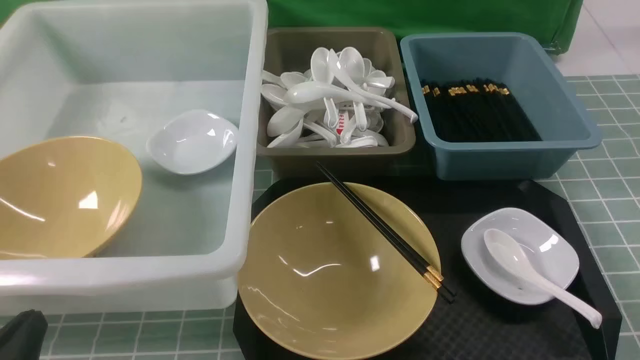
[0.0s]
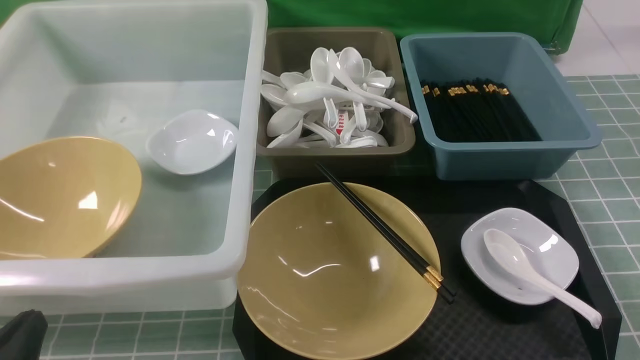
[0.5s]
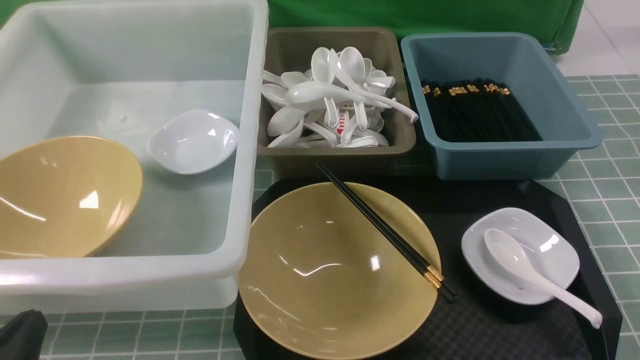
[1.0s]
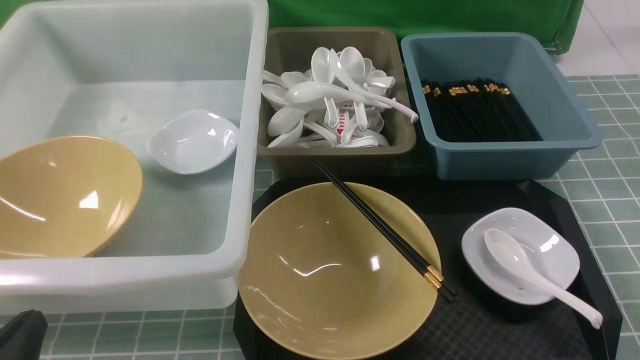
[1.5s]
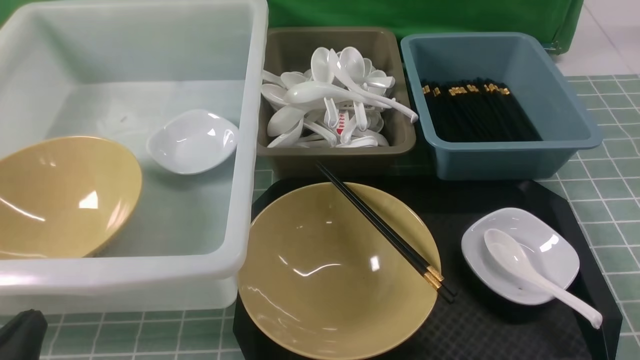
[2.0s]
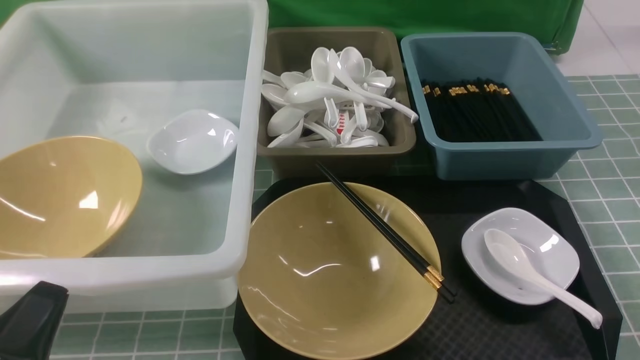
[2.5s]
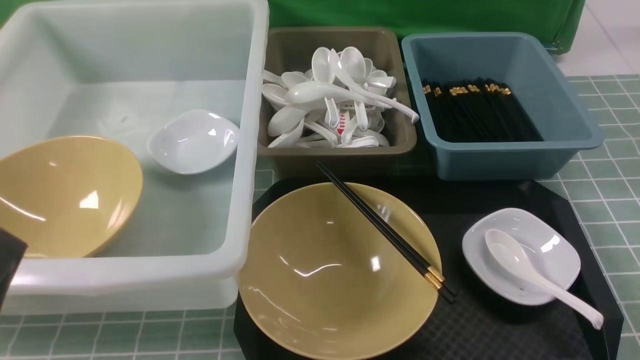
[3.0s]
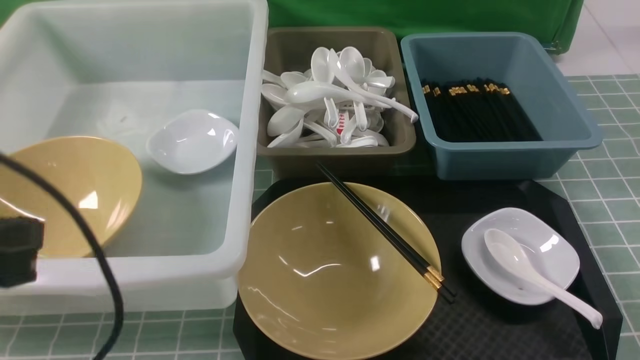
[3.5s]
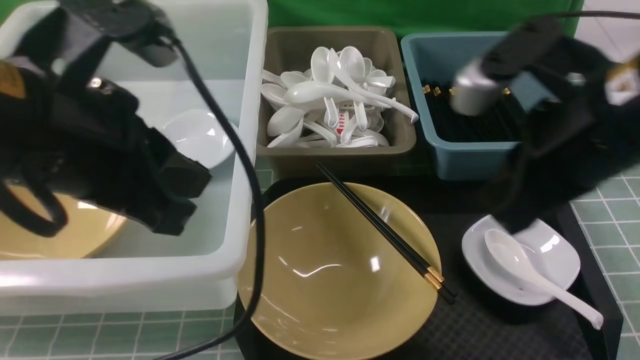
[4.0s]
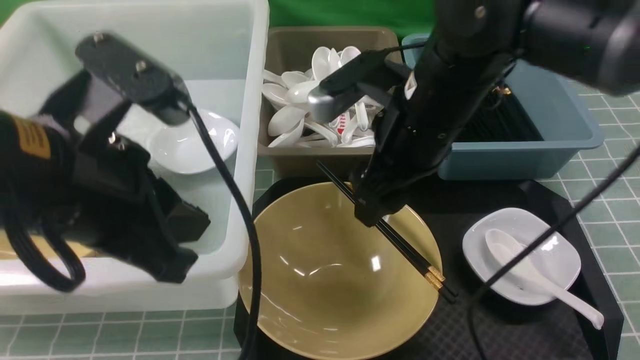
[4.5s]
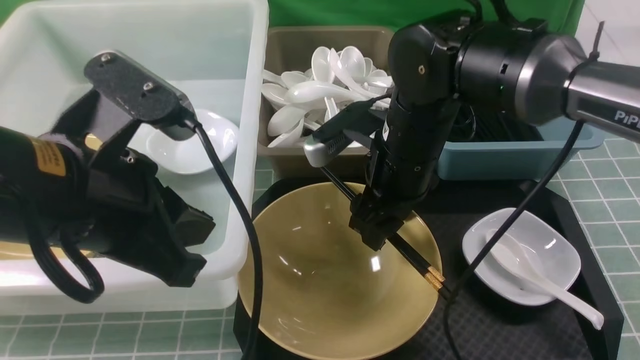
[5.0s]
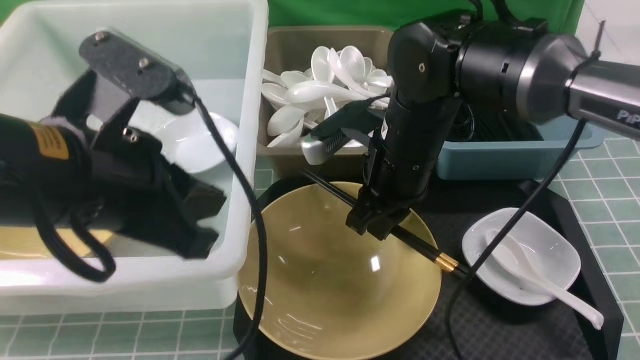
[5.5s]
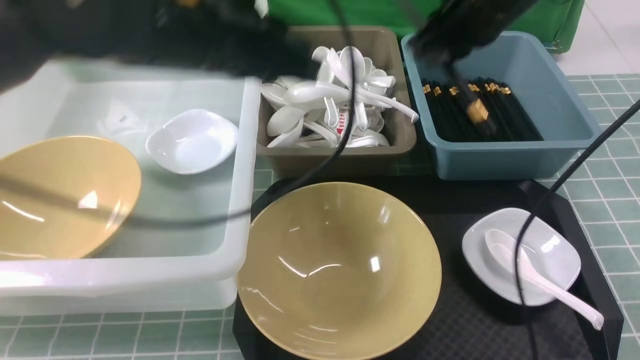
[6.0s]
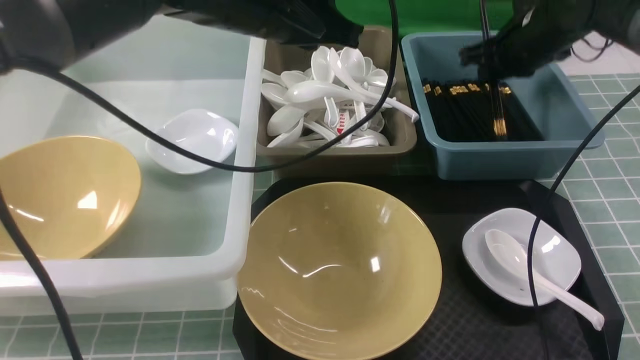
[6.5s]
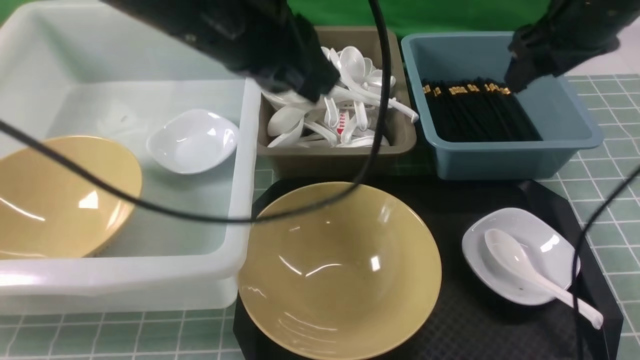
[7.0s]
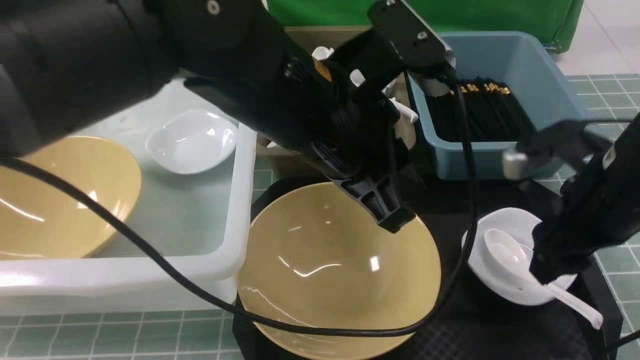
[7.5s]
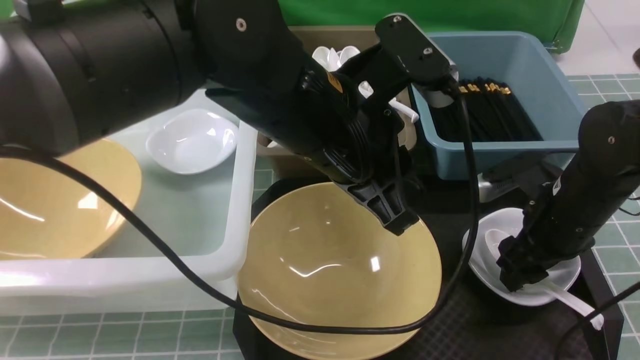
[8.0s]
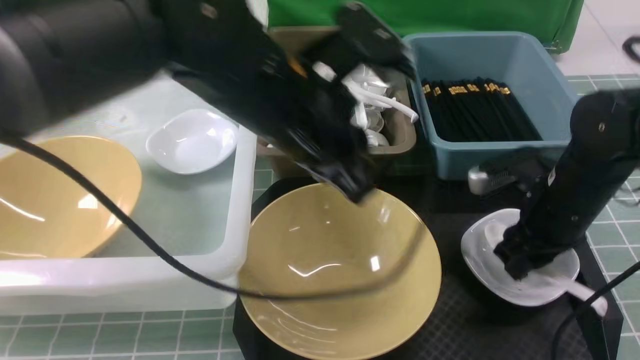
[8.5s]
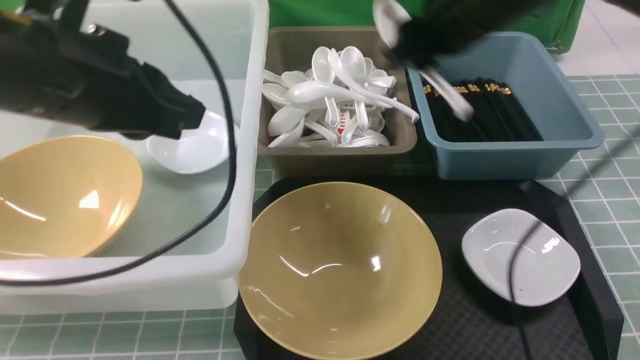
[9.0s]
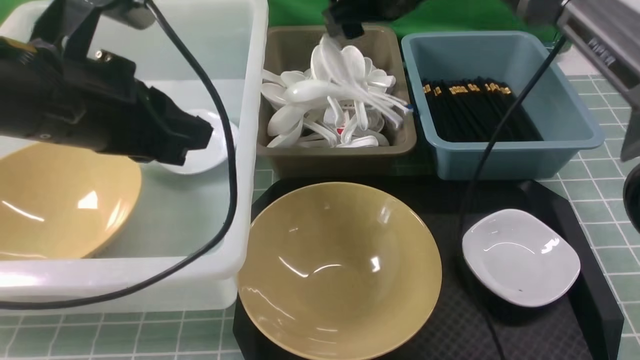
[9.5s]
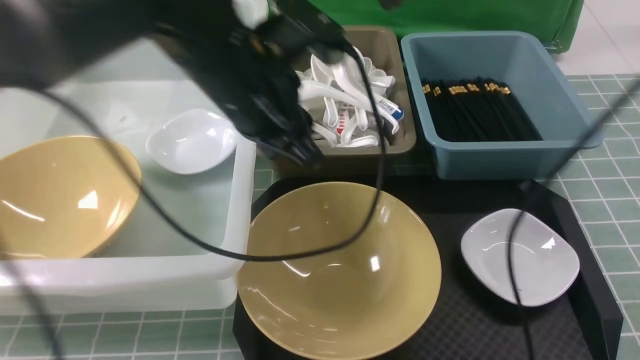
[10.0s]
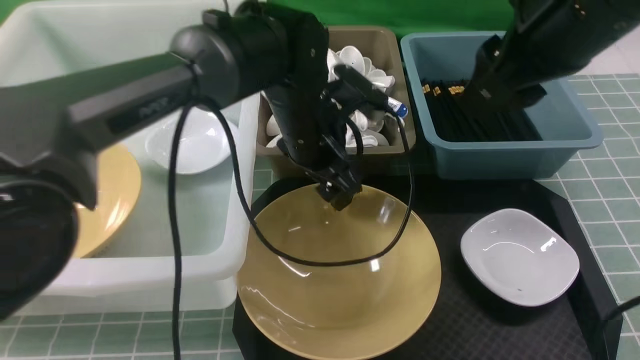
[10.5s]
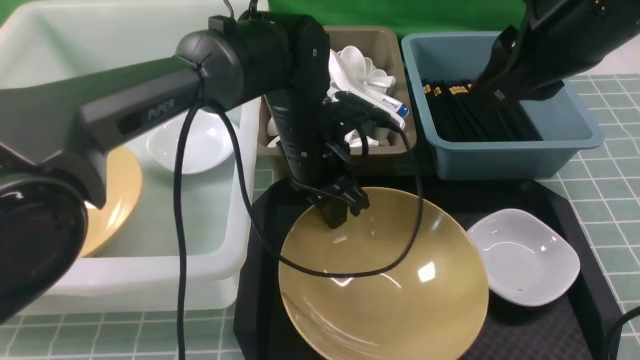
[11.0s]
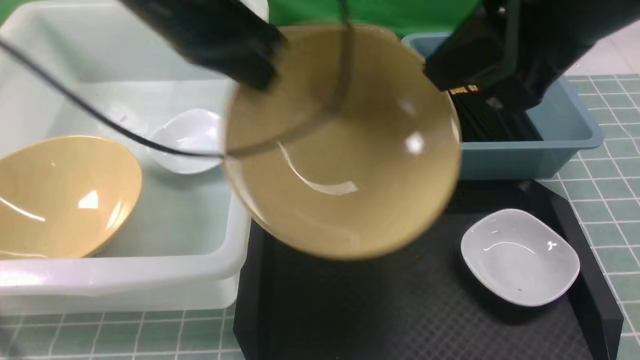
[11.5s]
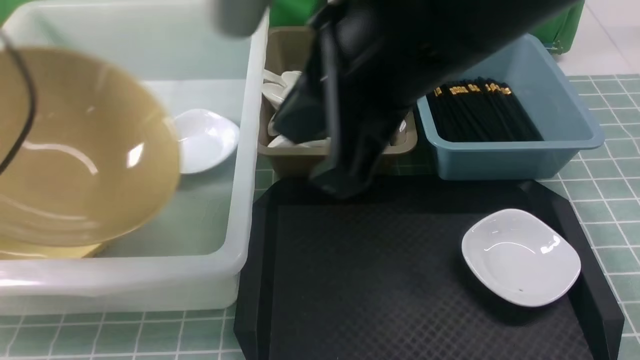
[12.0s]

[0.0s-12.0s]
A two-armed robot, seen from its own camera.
Task of the whole recording: on blue table put chopsticks spoon bowls plates into blue grey white boxes.
Step, 0.0s to 5.5s: use the right arm to grab the chopsticks.
Step, 6.0s to 6.5s: use the right arm to put the chopsticks into the small storage box on the right.
Step, 7.0s to 8.5s: use the right arm to grab the soup spoon in the middle.
Step, 9.0s to 9.5s: use the right arm to put the soup spoon into the small storage box in the middle.
Step, 10.0s to 11.0s: use the left arm to grab the yellow noodle bowl on the left.
2.0s to 4.0s: The left gripper travels upward, forward and to the right by about 25 cm. Meanwhile the right gripper heads forward, upward and to the left, covering some 30 cm.
4.0s to 6.0s: The left gripper moves forward and to the right, roughly 15 cm. The right gripper is displaced forward by about 20 cm, and opens, then closes once more.
6.0s to 8.0s: The right gripper moves downward, backward and to the right, roughly 20 cm, and opens. Meanwhile the left gripper heads to the right and backward, covering approximately 10 cm.
8.0s to 10.0s: The left gripper heads forward, covering roughly 5 cm, travels to the left and back again, approximately 15 cm each way, and opens; the right gripper is displaced upward and to the left by some 25 cm.
10.0s to 12.0s: The left gripper travels to the left by roughly 30 cm, and opens, then closes again. The right gripper travels backward and to the left by approximately 20 cm, and closes.

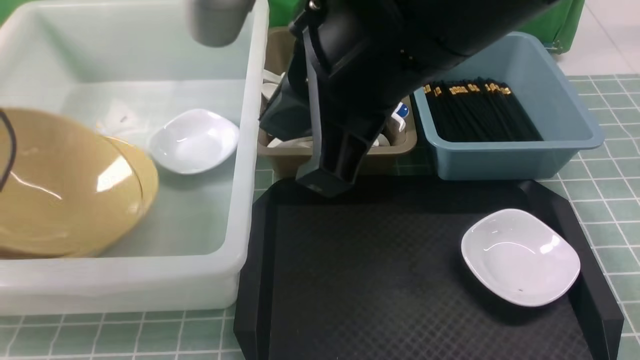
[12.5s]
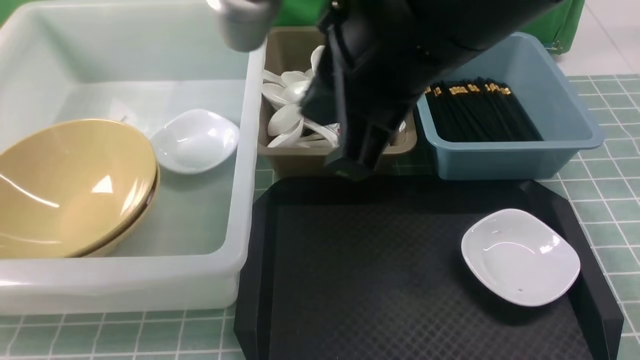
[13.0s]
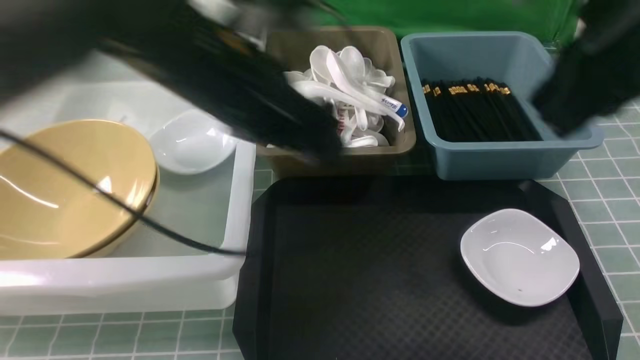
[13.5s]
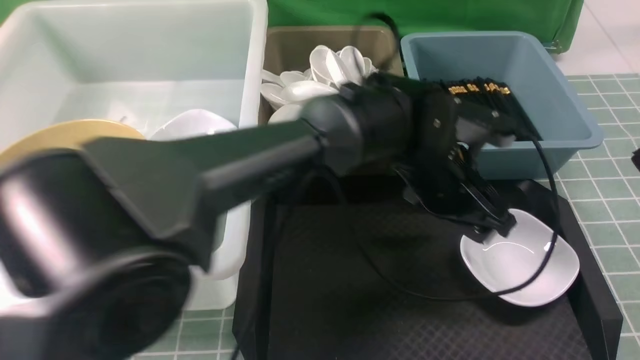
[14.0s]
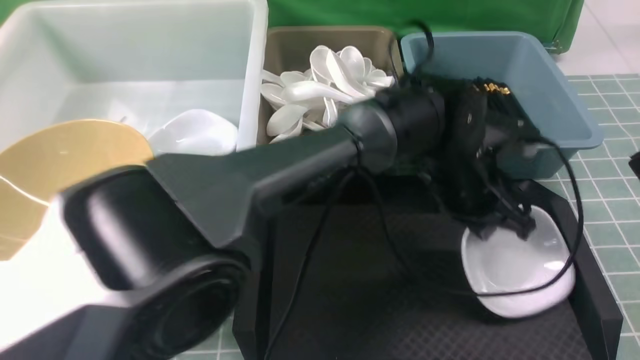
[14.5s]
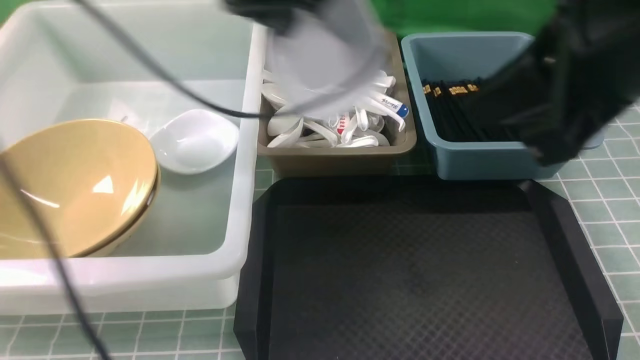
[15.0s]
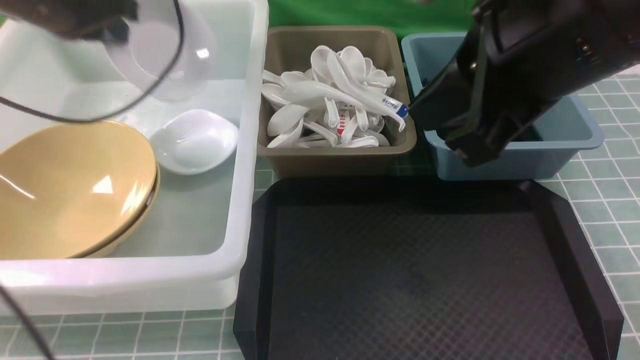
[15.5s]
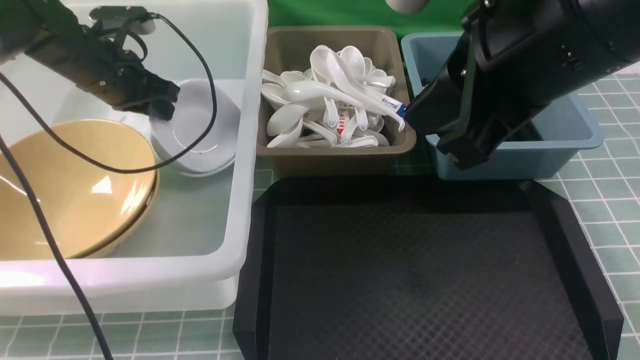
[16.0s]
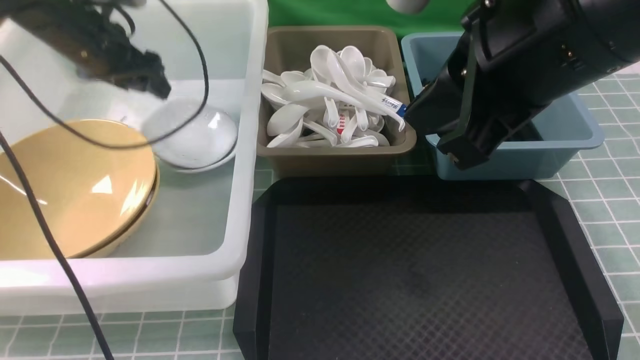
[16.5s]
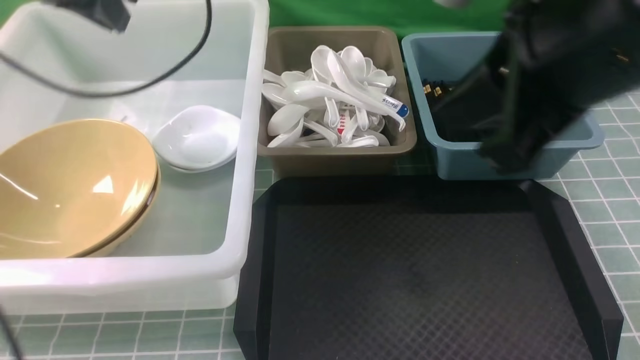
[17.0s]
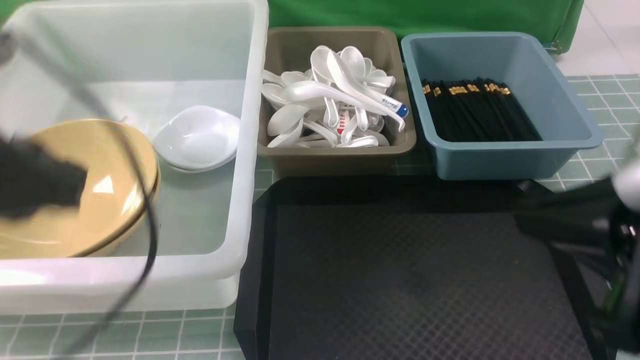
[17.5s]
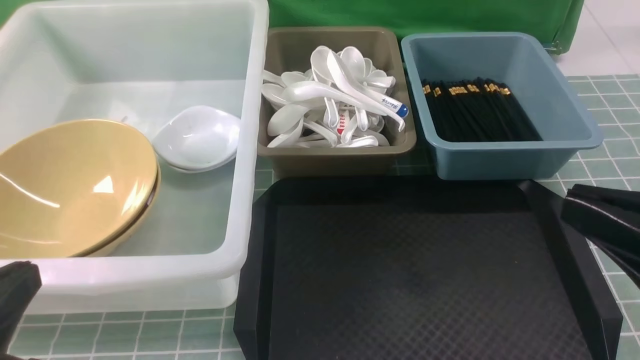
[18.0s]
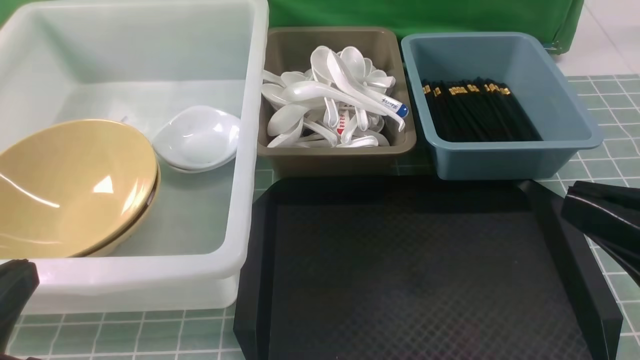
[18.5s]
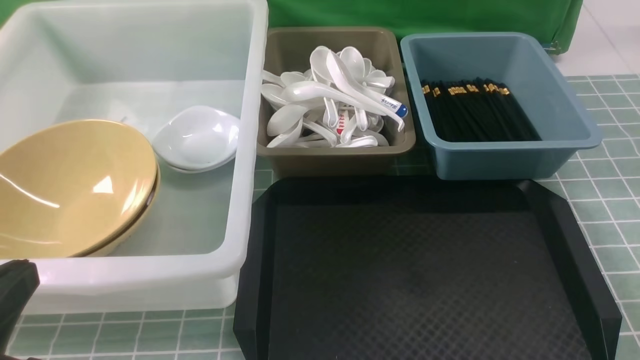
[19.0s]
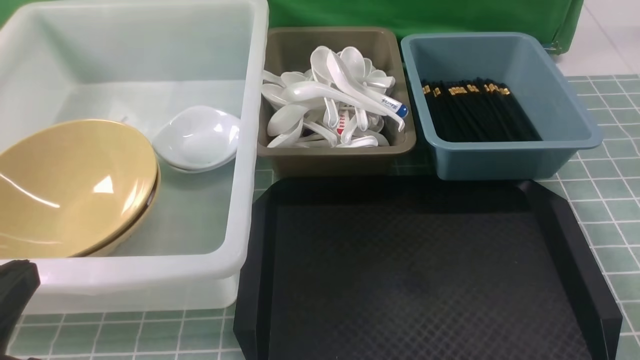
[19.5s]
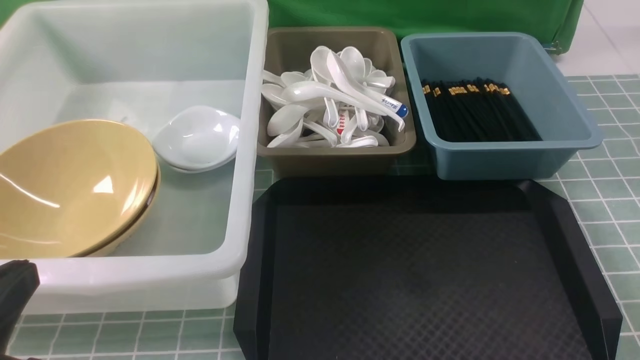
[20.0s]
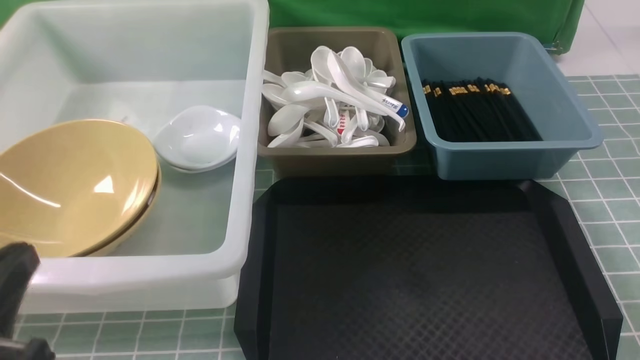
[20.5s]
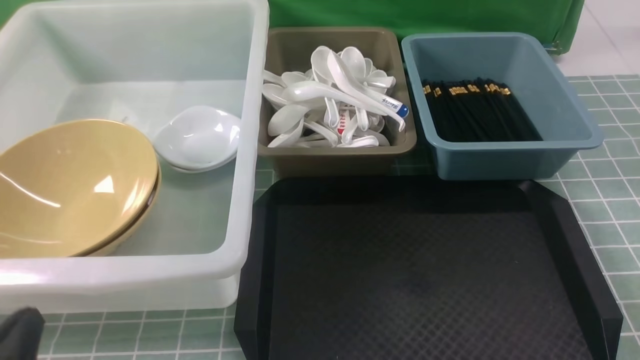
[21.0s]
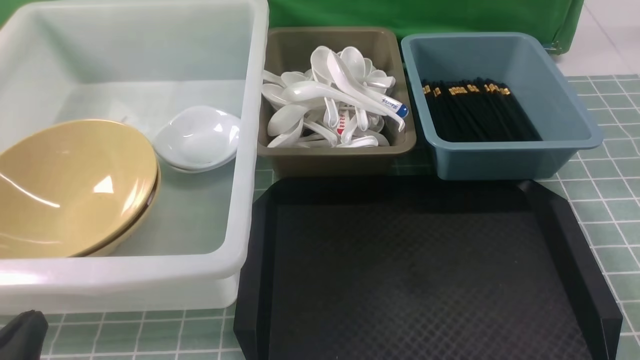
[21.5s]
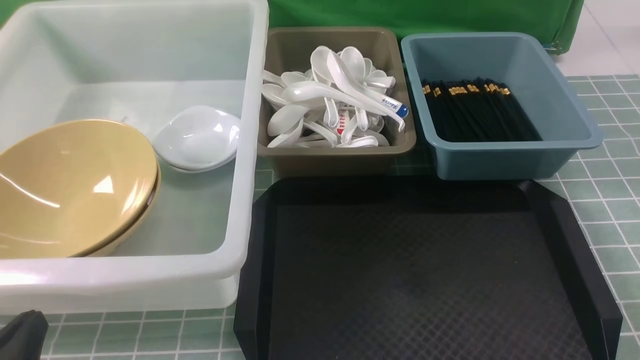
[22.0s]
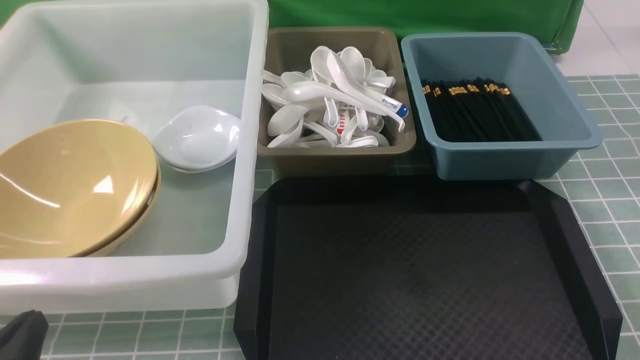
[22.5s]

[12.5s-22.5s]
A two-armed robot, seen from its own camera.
Task of the whole recording: on blue table put chopsticks spoon bowls plates into blue grey white boxes.
Step, 13.5s to 14.5s: use the left arm to grab the plate.
Step, 15.0s to 16.5s: use the left arm to put the plate into the large storage box on the left.
12.5s to 14.5s: The right gripper travels to the right by approximately 20 cm. The left gripper is displaced to the right by approximately 50 cm, and opens, then closes again.
14.5s to 16.5s: The right gripper heads to the left and forward, covering approximately 10 cm; the left gripper heads to the left, covering some 40 cm, and opens its fingers.
16.5s to 18.5s: The right gripper goes about 20 cm backward, to the right and downward; the left gripper heads backward, covering roughly 40 cm, and closes up.
18.5s to 20.5s: The right gripper goes roughly 15 cm downward and to the right.
20.5s to 22.5s: The left gripper is displaced downward by some 10 cm.
